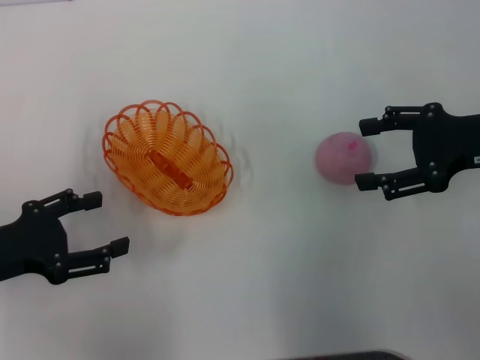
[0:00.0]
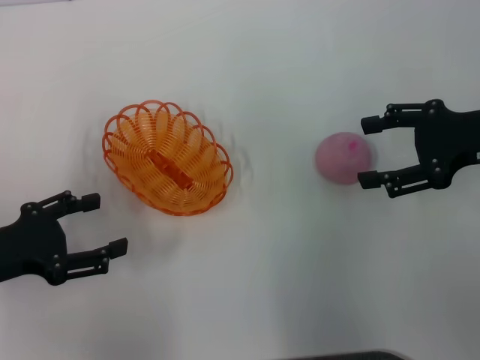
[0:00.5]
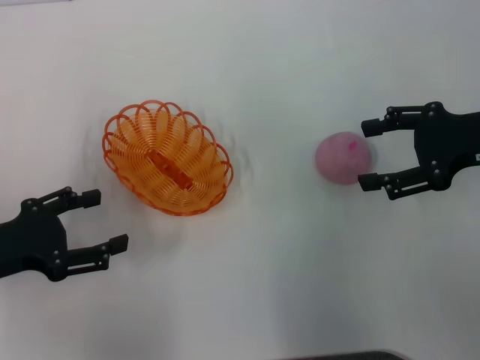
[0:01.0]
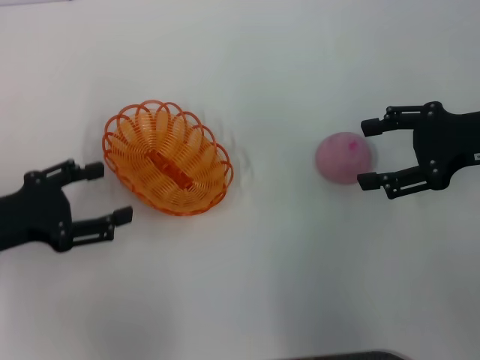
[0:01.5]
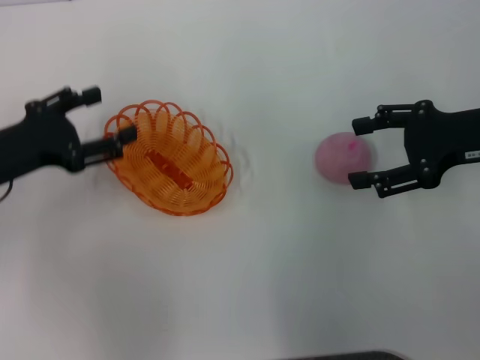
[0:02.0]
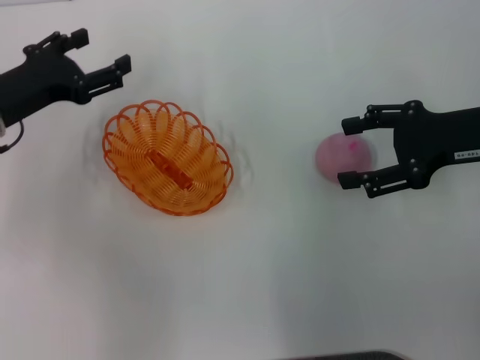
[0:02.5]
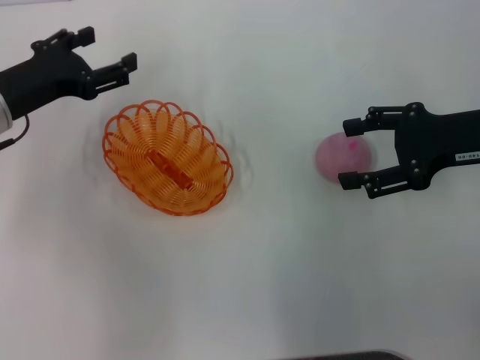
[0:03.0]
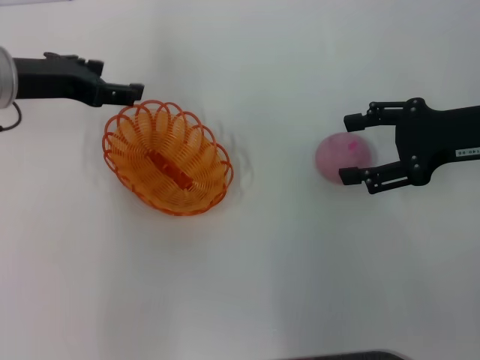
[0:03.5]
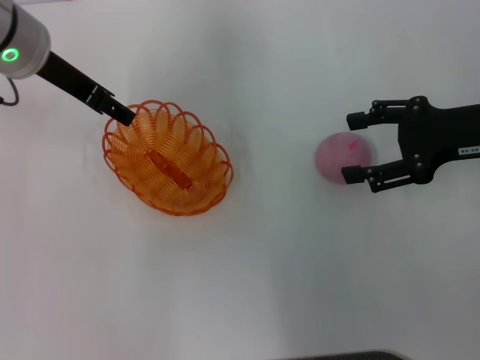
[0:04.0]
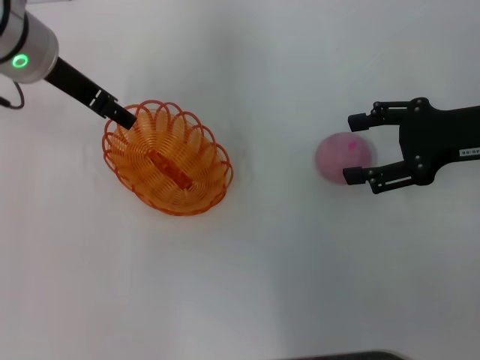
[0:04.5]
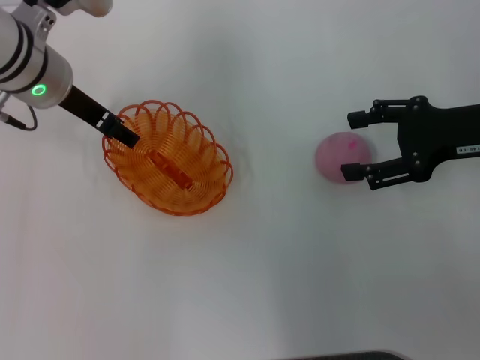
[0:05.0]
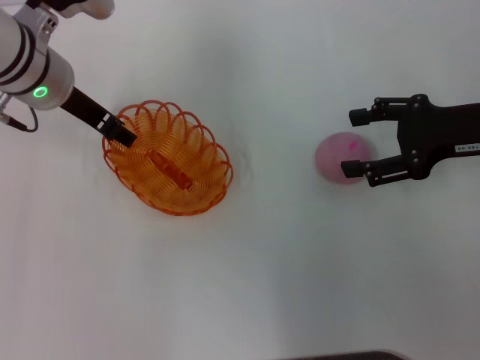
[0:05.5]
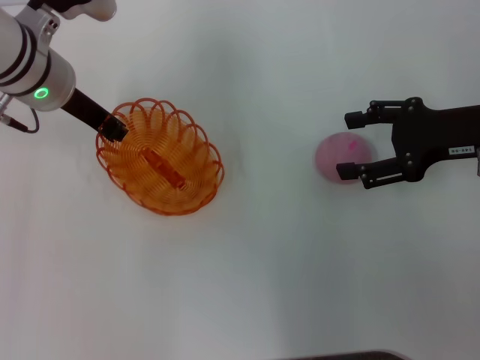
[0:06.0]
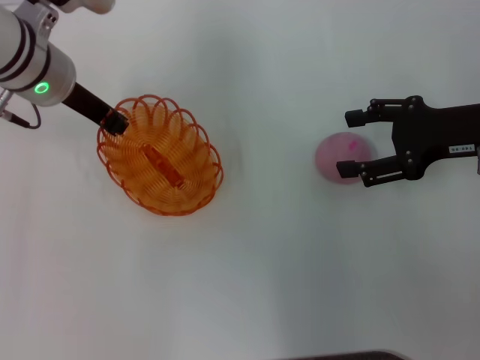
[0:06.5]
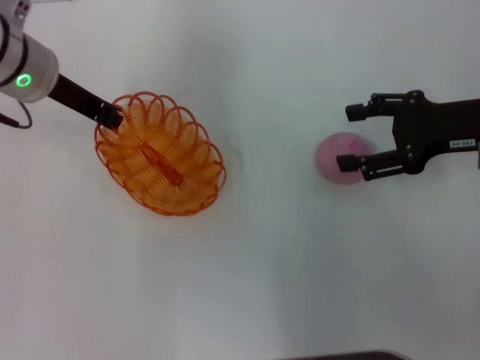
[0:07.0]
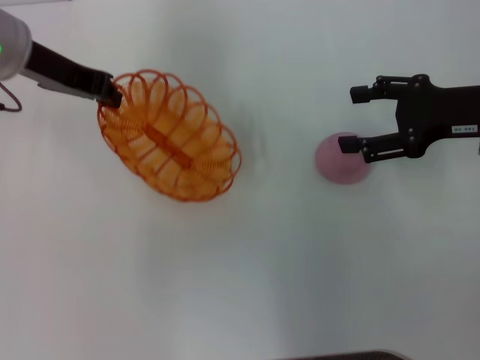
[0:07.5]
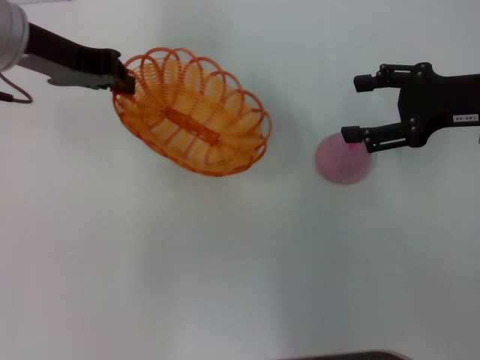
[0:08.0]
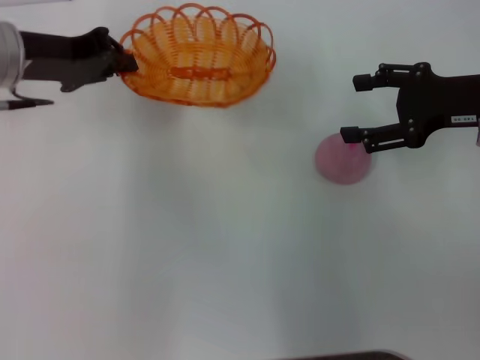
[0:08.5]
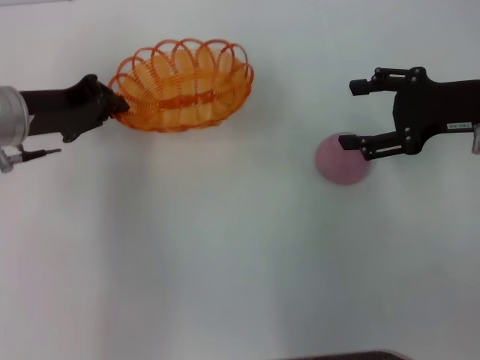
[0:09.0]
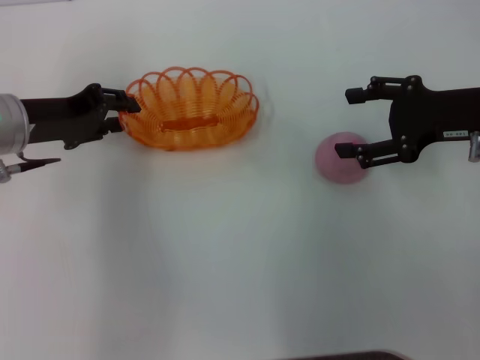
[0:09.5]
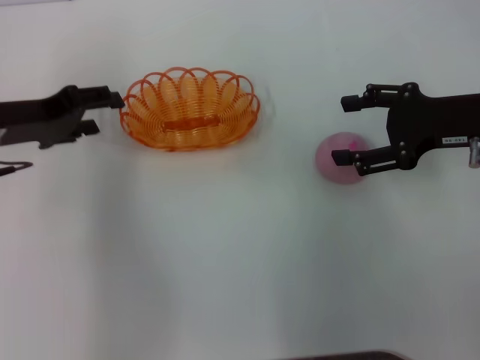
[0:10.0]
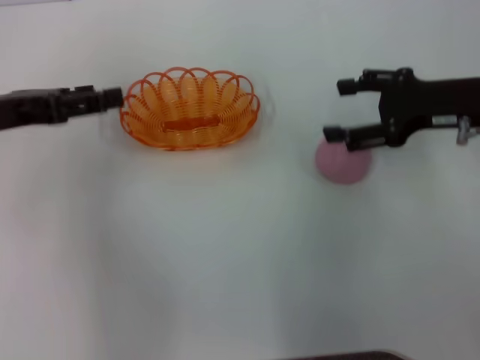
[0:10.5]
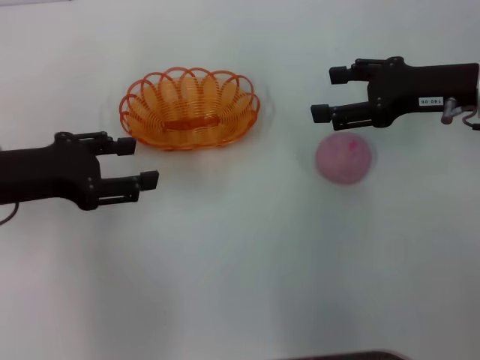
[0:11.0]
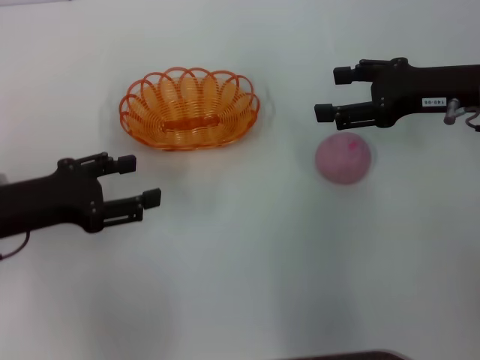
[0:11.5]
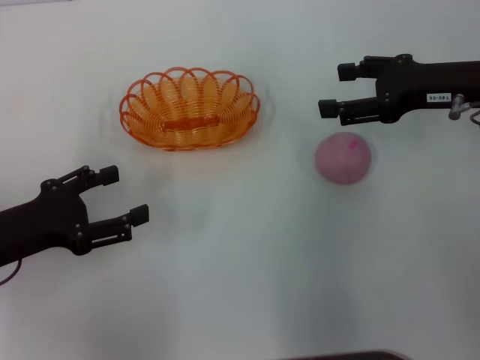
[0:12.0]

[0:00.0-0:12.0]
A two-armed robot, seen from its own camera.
Step, 0:00.0 to 0:07.5: Pick up the basket with the left gripper.
Step, 0:08.0 to 0:10.5: Place the basket in the center of view with the left gripper.
0:00.0 to 0:02.0: The left gripper heads forward, covering about 5 cm.
0:02.0 to 0:04.0: The left gripper shifts approximately 15 cm forward, upward and to the right.
0:04.0 to 0:06.0: The left gripper closes its fingers.
0:06.0 to 0:08.0: The left gripper is displaced upward by approximately 5 cm, and closes its fingers.
0:08.0 to 0:10.0: The left gripper shifts roughly 10 cm downward, to the left and backward, and opens.
0:10.0 to 0:12.0: The left gripper is displaced backward and downward by about 10 cm.

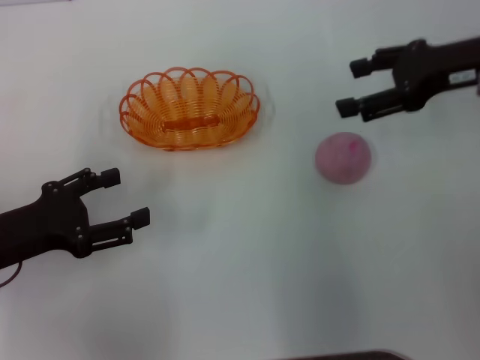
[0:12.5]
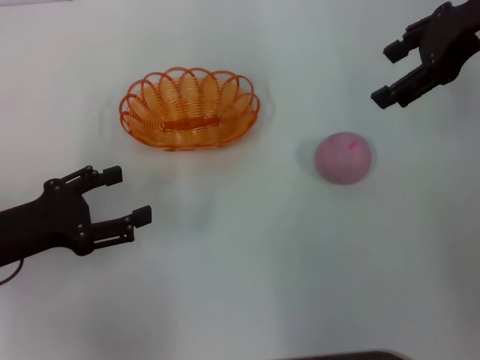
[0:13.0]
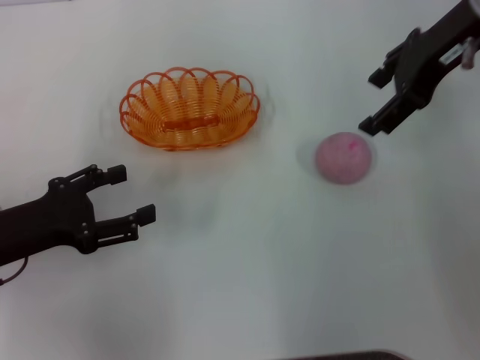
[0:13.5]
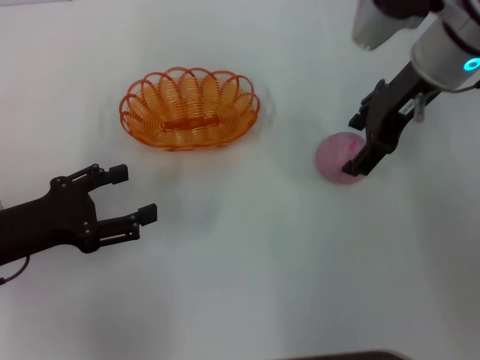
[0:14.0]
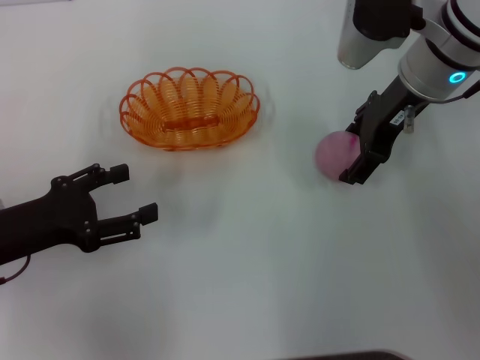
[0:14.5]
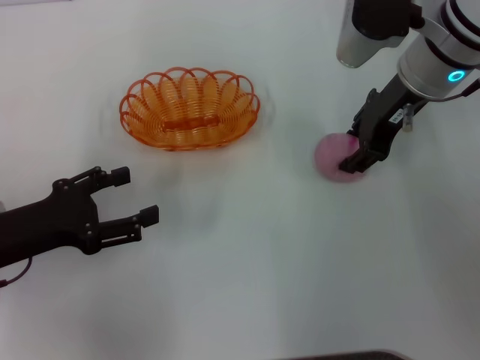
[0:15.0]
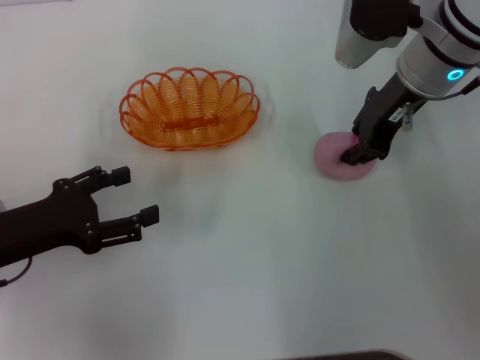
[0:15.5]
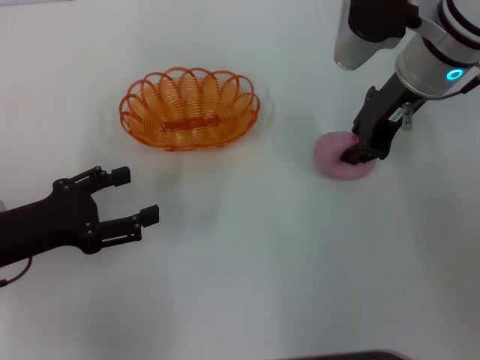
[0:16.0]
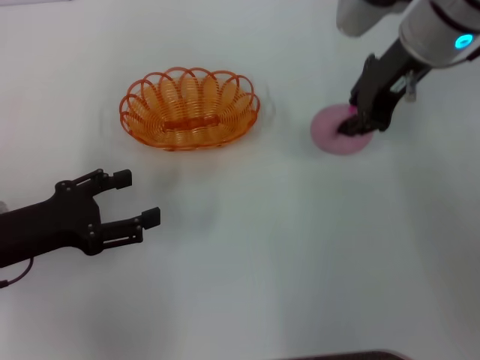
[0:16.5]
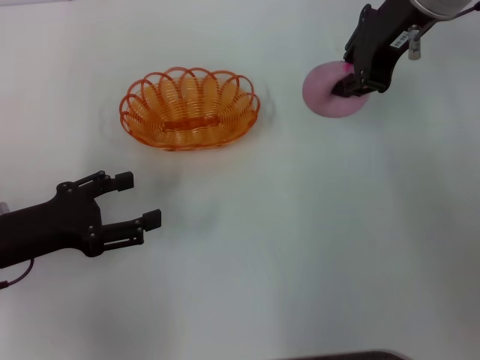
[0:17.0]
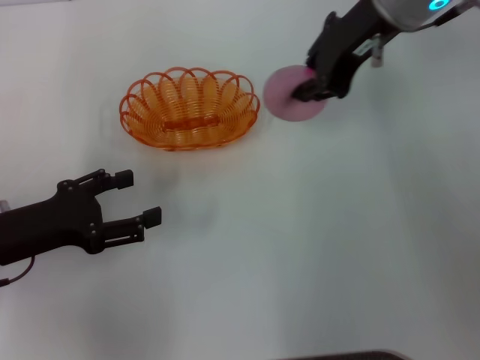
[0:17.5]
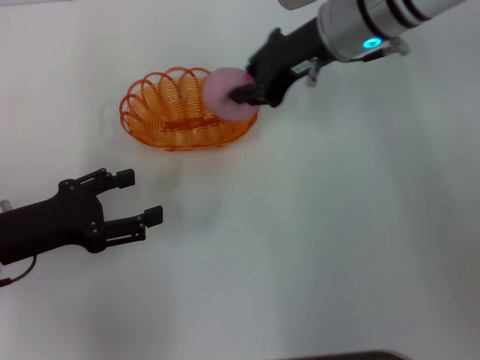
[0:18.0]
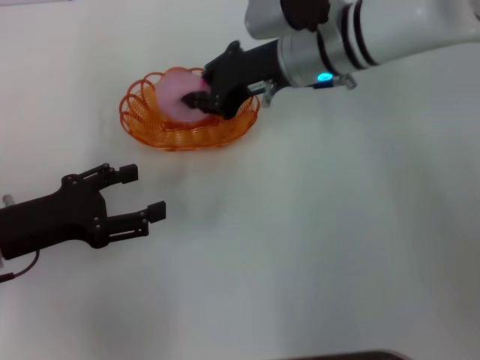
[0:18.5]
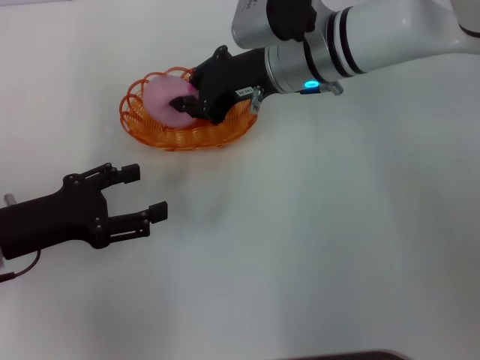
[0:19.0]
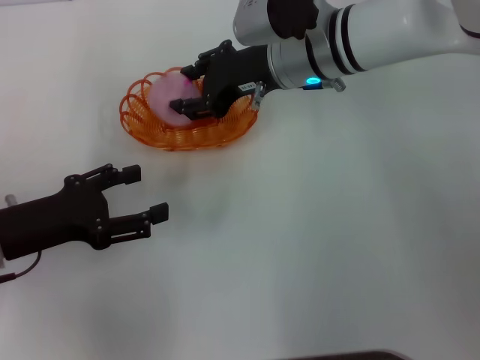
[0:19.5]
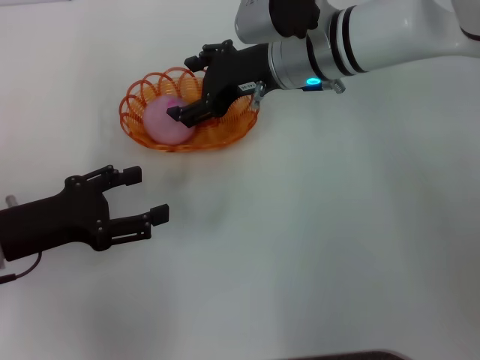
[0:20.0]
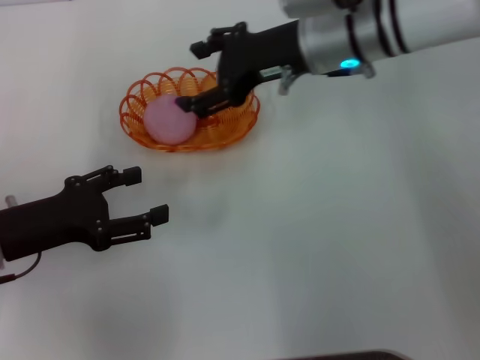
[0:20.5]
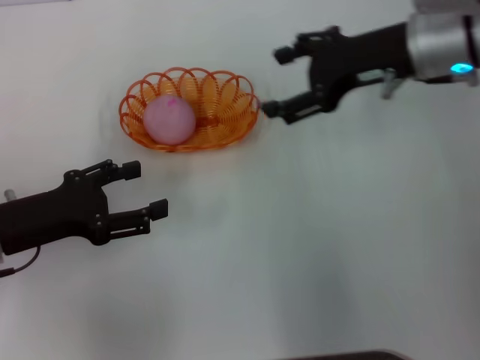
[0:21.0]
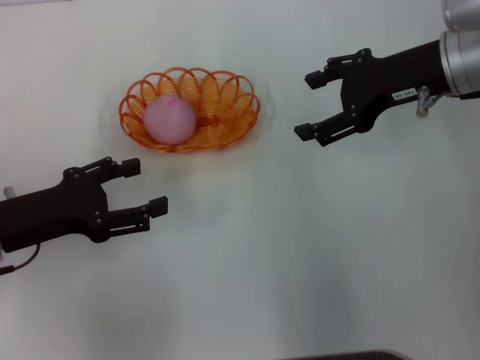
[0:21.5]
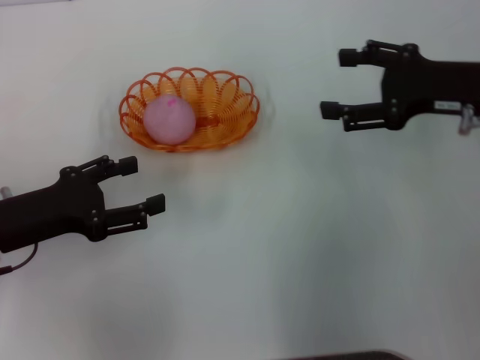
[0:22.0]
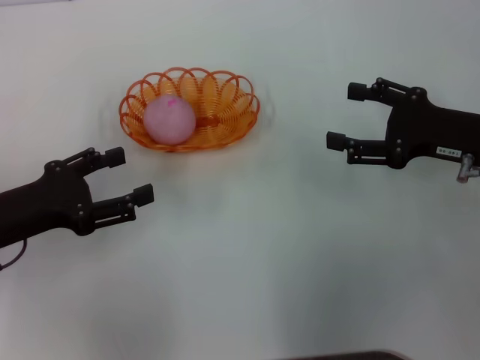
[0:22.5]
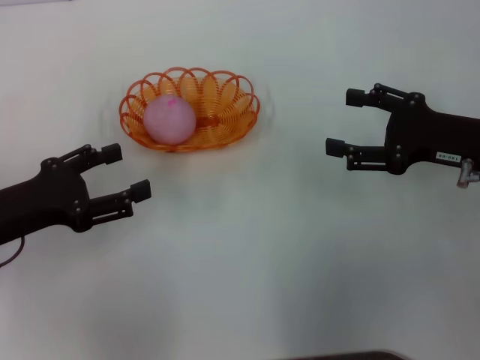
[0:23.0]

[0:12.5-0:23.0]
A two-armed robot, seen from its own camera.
Step, 0:12.5 to 0:16.5: Pick up the peach with the right gripper.
Step, 0:17.0 to 0:20.5: Place the peach into the basket with the right gripper.
0:12.5 to 0:14.5: The right gripper shifts roughly 10 cm to the left.
0:14.5 to 0:16.5: The right gripper closes up.
0:16.5 to 0:19.0: The right gripper travels to the left and downward by some 10 cm.
0:19.0 to 0:21.0: The right gripper is displaced to the right by roughly 10 cm, and opens.
0:21.0 to 0:23.0: The right gripper goes about 15 cm backward, downward and to the right.

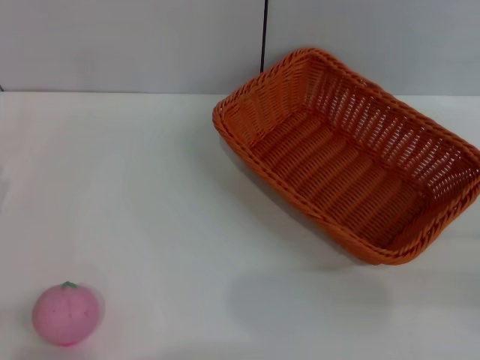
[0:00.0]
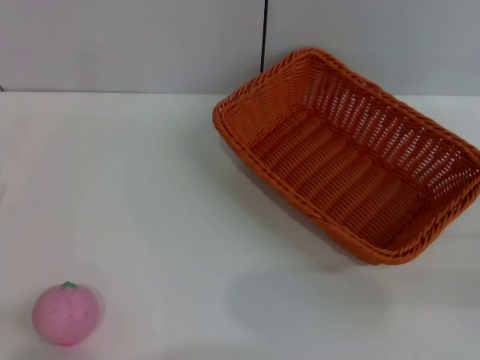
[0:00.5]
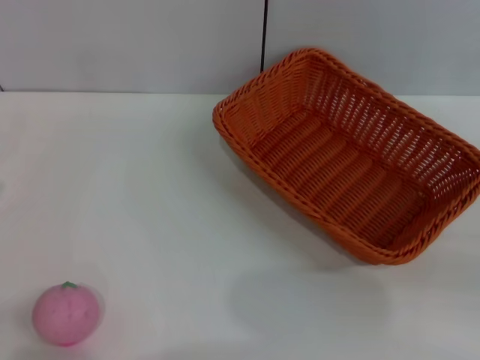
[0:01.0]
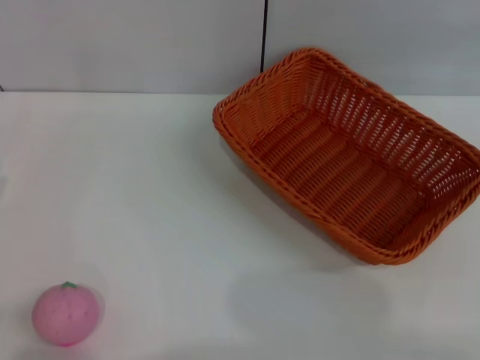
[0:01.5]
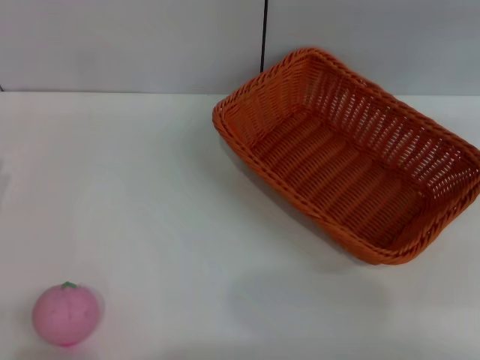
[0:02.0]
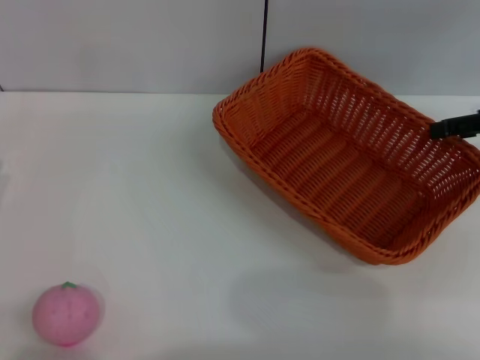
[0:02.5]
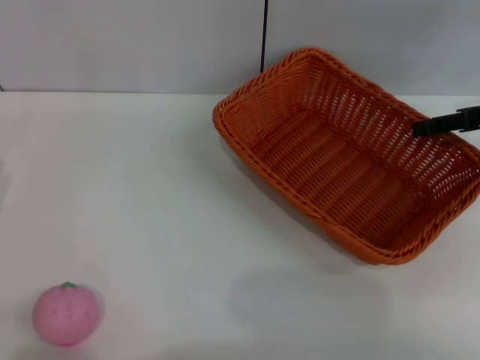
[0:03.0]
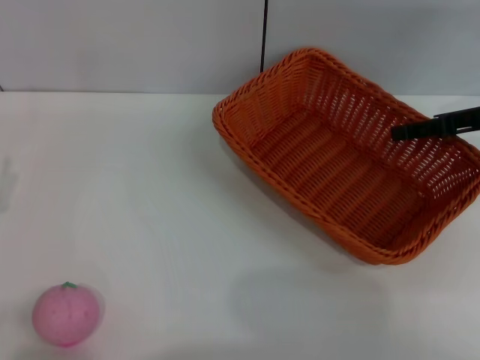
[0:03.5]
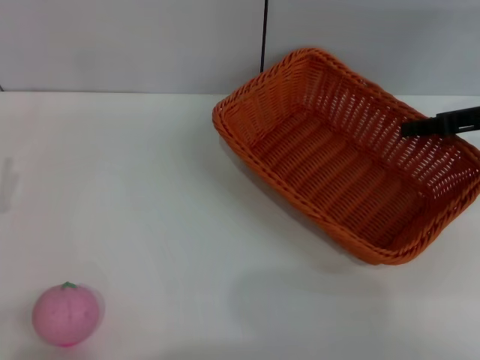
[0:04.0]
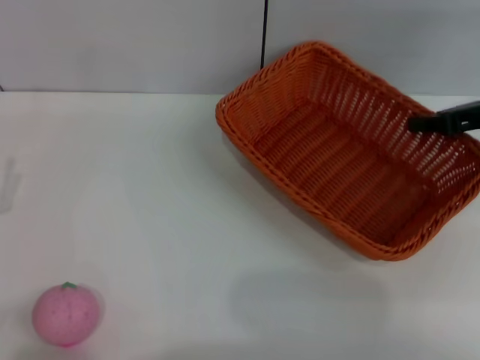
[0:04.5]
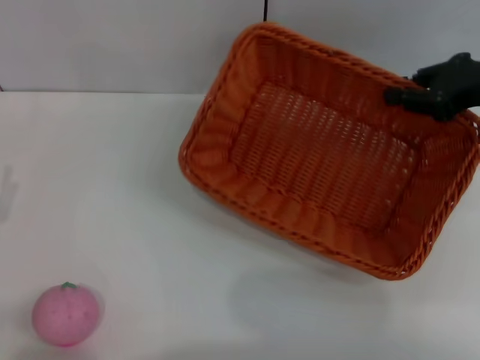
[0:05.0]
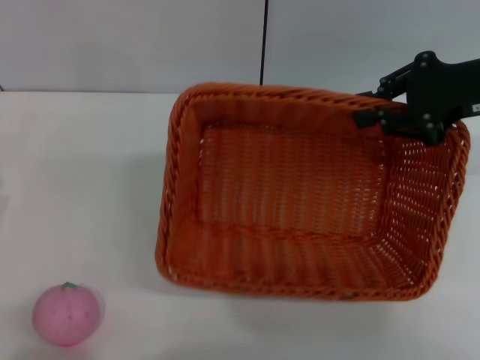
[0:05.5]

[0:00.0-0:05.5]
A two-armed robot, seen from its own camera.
Step, 0:00.0 to 0:04.5: Pick up the light basket with the right gripper.
0:02.0 to 0:03.5: The right gripper is displaced to the left and downward by about 10 cm.
0:03.5 to 0:05.5: The right gripper heads upward, covering about 5 cm, and closes.
